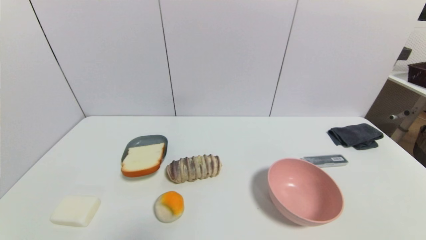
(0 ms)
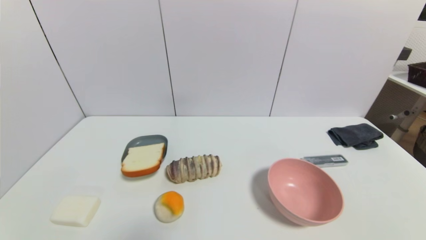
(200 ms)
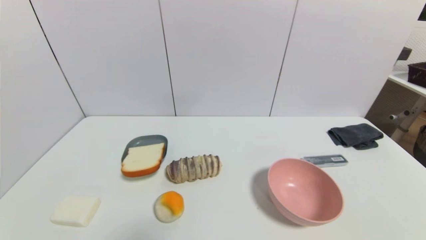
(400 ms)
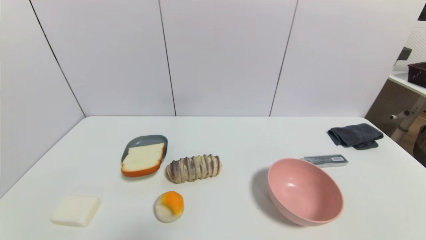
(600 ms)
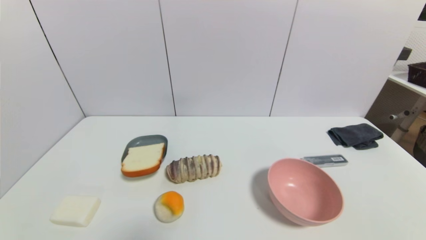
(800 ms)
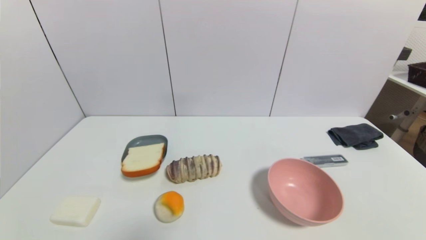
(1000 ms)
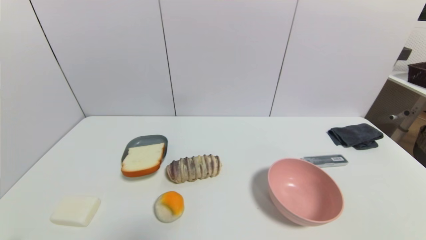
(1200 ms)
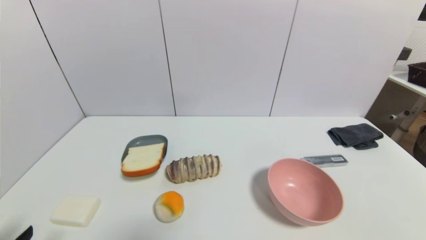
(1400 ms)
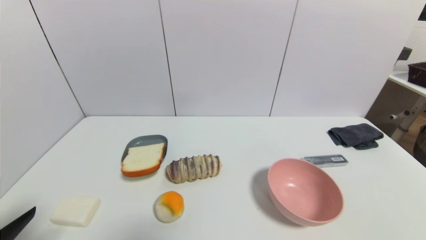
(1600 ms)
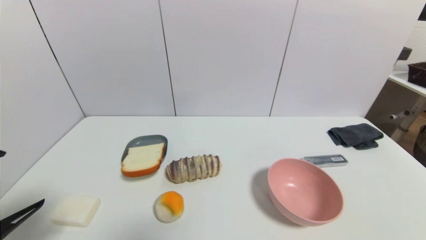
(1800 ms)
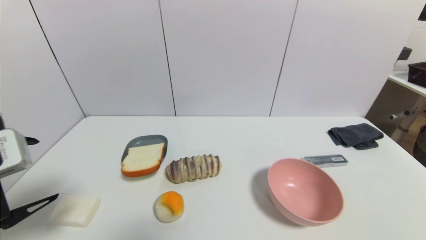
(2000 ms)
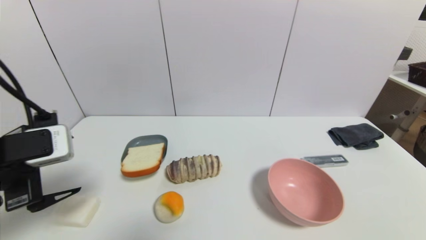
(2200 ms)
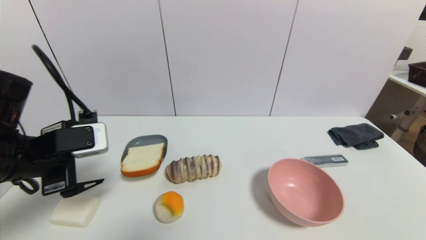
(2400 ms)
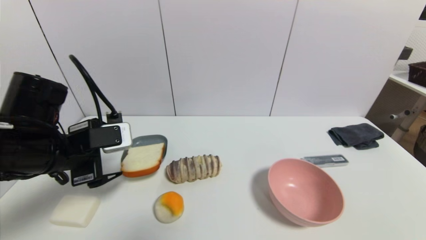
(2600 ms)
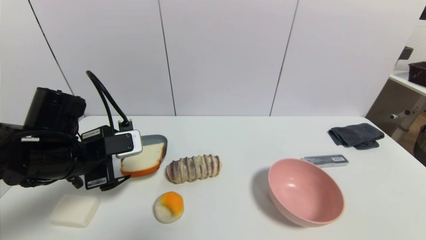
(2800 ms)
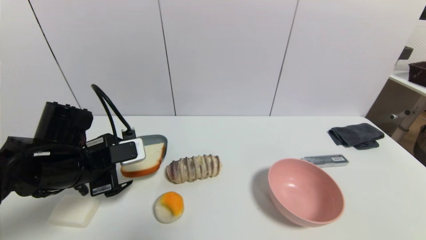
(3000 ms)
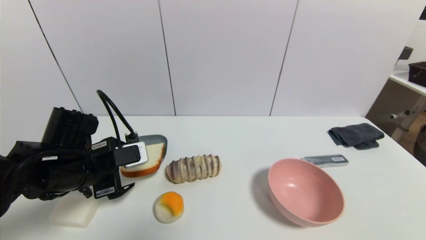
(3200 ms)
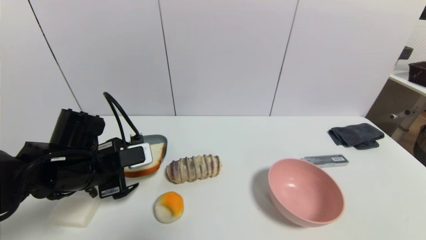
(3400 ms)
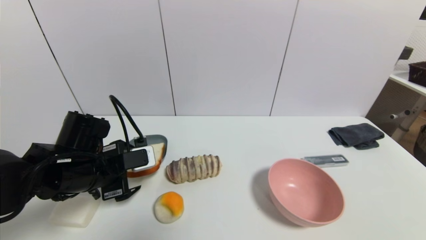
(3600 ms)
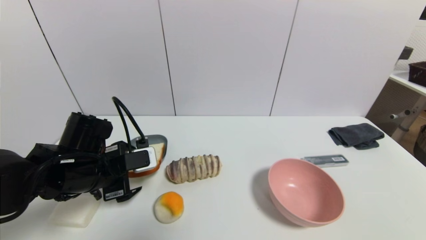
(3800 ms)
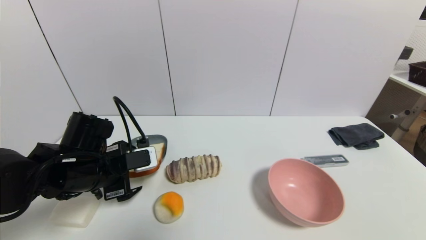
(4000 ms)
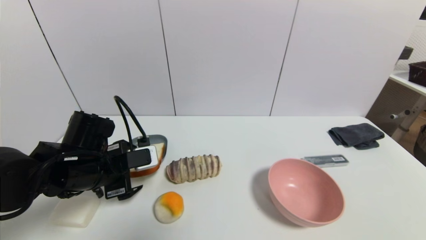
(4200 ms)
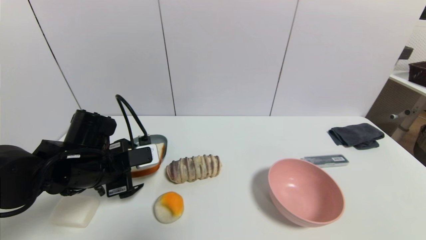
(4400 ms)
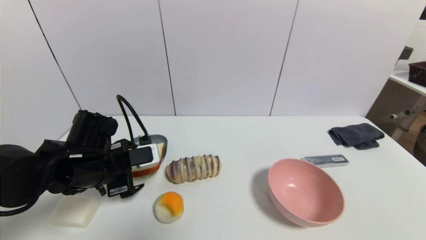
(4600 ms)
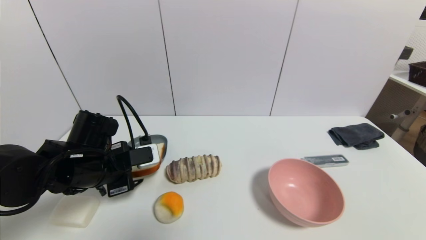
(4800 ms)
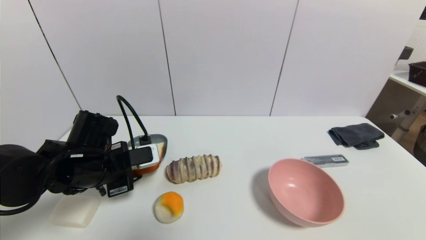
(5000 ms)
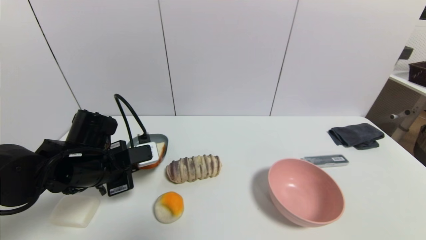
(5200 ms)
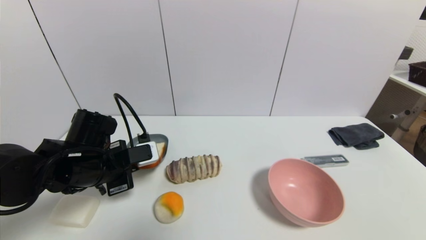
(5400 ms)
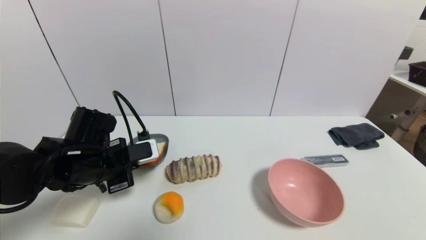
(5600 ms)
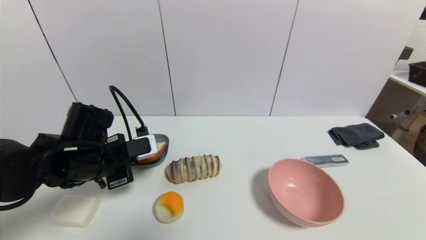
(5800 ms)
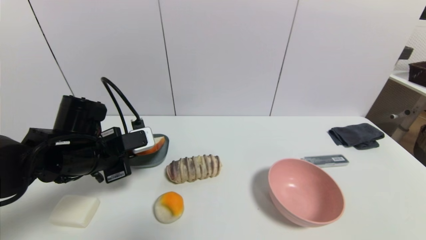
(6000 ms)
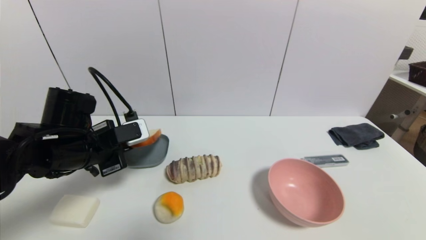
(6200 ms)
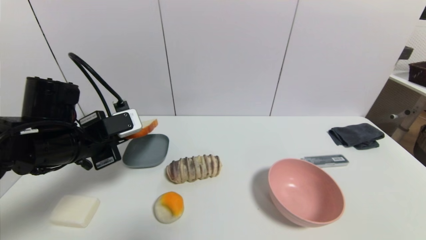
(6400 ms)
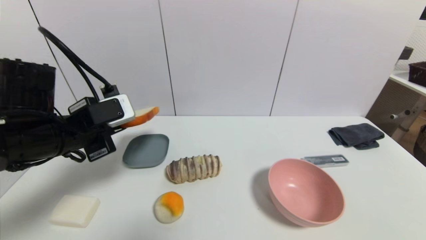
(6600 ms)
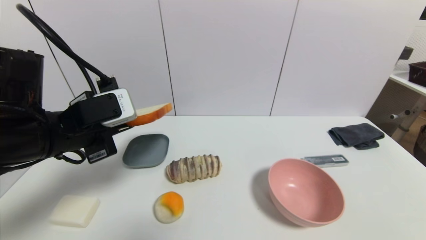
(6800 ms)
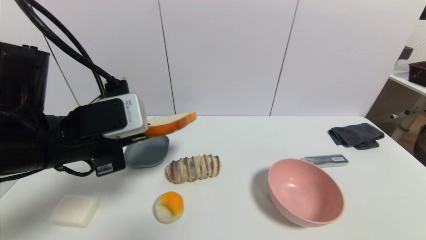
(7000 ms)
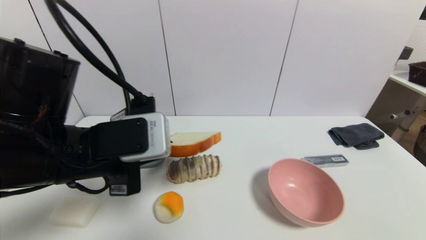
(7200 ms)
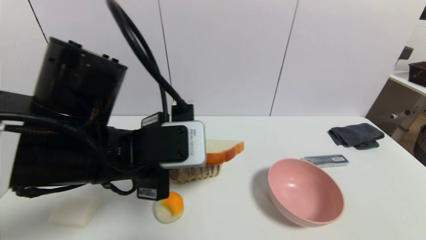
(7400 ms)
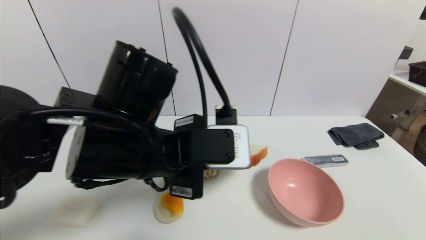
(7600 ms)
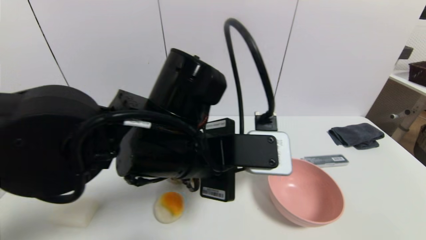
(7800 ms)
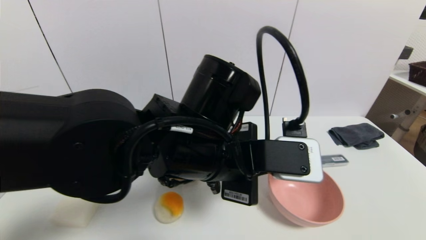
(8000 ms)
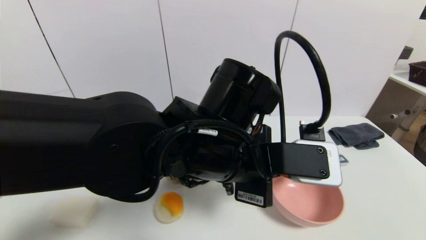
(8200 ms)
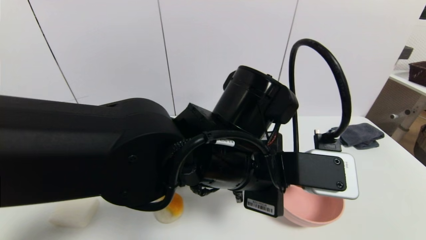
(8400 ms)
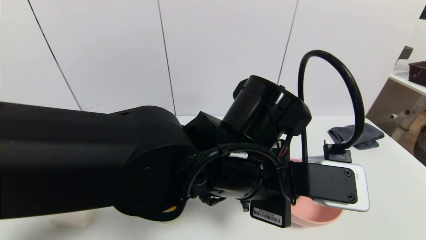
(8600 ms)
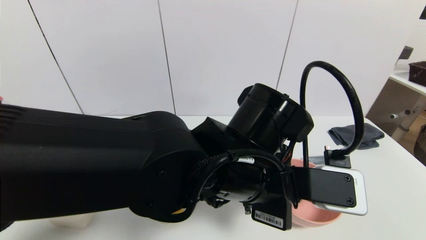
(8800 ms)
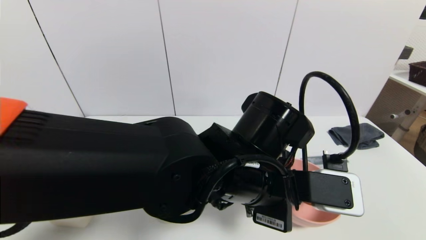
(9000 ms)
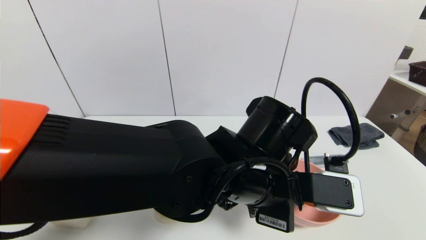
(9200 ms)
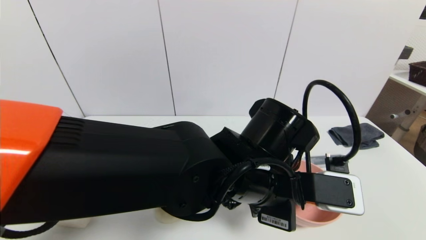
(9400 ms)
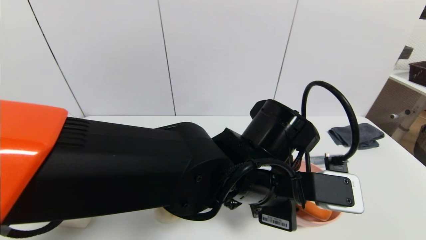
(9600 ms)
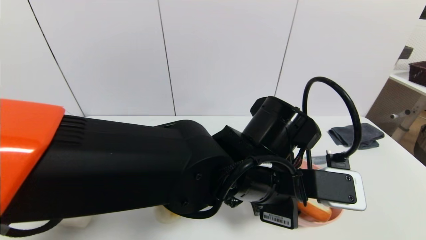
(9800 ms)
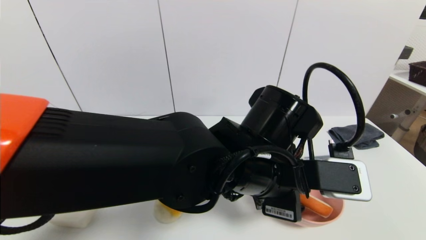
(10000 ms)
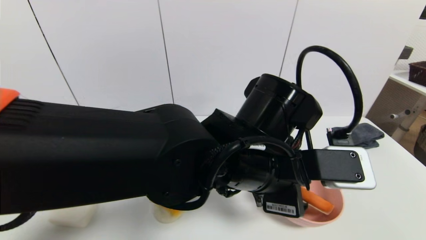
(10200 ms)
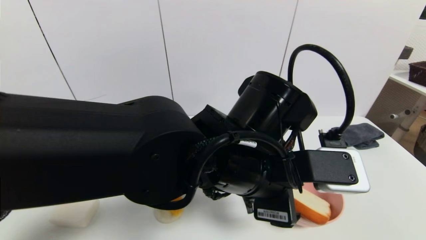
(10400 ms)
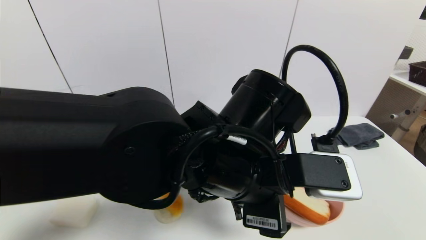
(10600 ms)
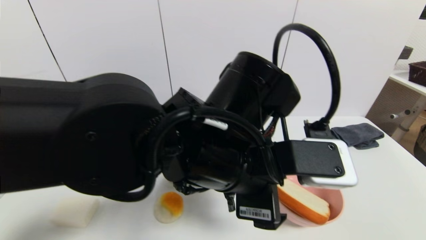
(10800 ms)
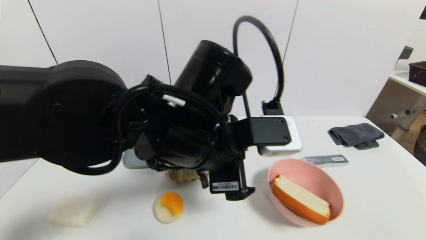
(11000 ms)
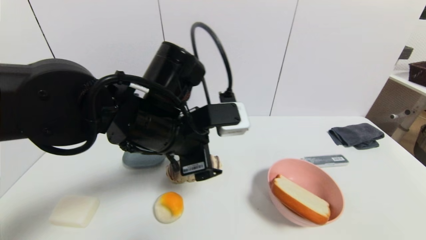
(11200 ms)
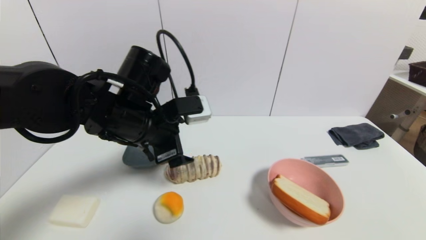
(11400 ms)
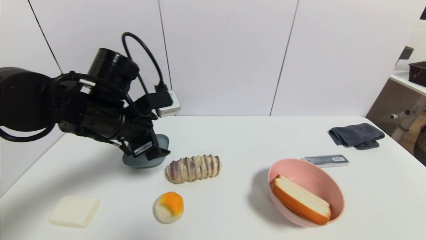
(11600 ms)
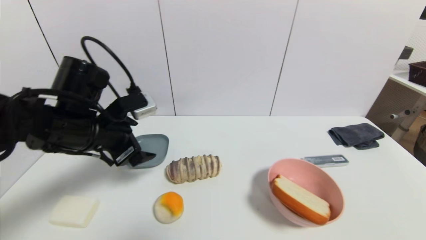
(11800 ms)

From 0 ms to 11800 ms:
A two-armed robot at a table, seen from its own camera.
Task of the whole recording: use a gripper to pick the target object and place on the pink bowl.
Step, from 0 ms to 5200 ms: Grasp the bread slice with the left gripper.
Step, from 5400 ms to 9600 ms: Place the bread slice on the pink bowl with the left gripper.
From 1400 ms to 3000 ms: The left gripper moves forward, some 20 cm.
From 3000 ms to 4400 ms: The grippers move only a little.
From 4400 ms to 6000 ms: The left gripper closes.
From 6000 ms to 7400 ms: The left gripper is displaced to the right, upward and backward by some 15 cm.
From 7400 ms to 8800 ms: The left gripper shifts roughly 15 cm to the right.
From 8800 ms to 10400 ms: The left gripper opens up.
From 10400 ms to 11800 ms: The left gripper is displaced to the left by approximately 25 cm.

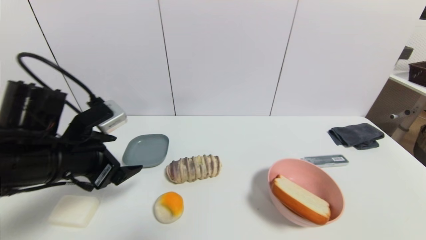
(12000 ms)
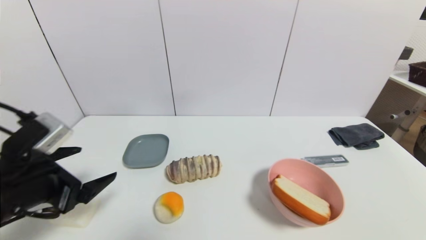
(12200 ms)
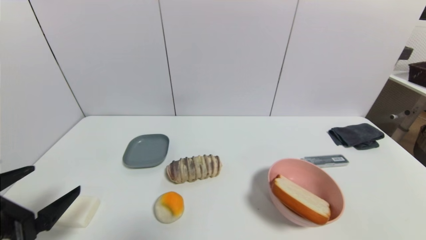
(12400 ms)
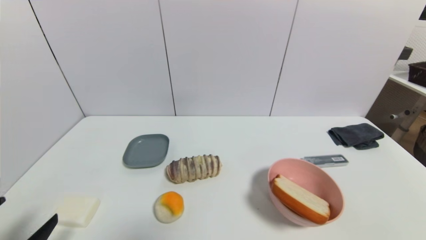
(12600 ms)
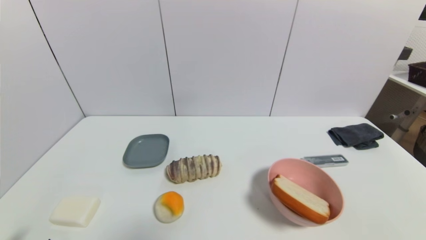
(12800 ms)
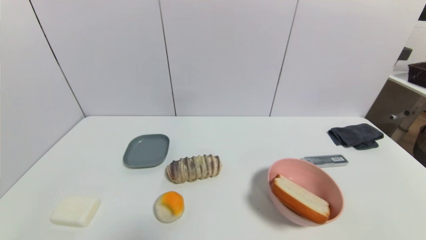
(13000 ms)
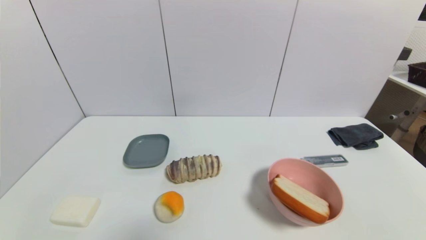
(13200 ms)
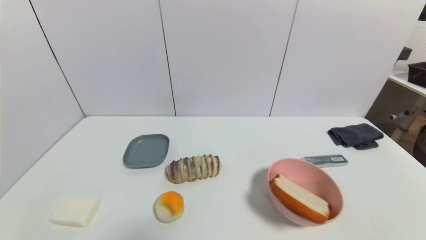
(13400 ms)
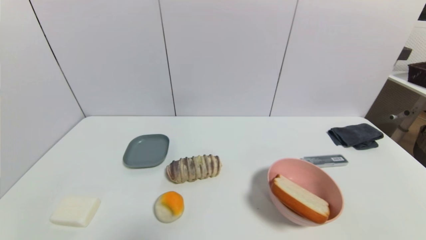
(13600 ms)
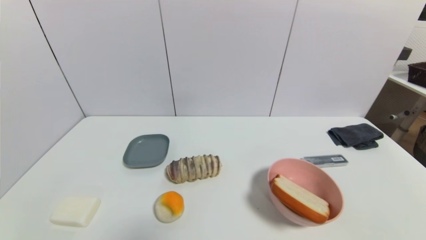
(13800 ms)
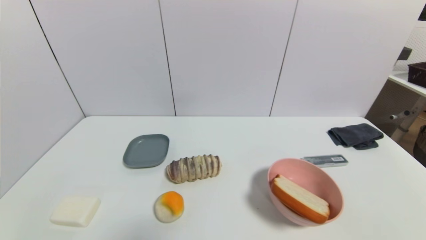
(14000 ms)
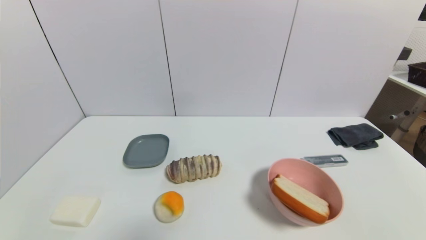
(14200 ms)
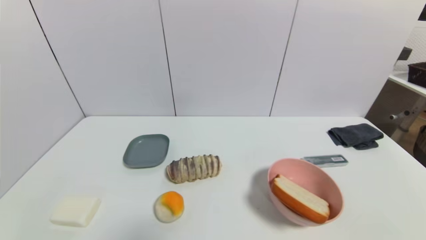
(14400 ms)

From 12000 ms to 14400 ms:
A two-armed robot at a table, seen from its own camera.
Task of the whole recording: use a gripper to pick the target object and place on the pink bowl.
From 12000 ms to 13200 ms: The left gripper is displaced backward and downward by some 25 cm.
